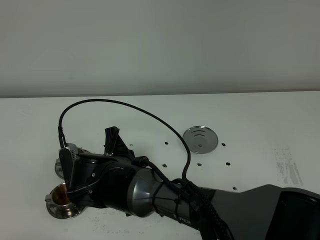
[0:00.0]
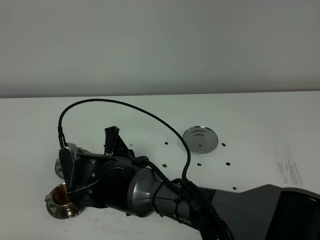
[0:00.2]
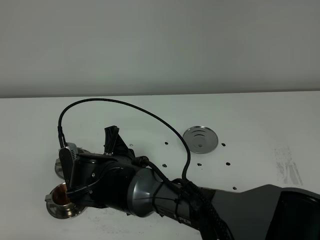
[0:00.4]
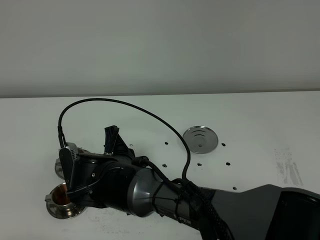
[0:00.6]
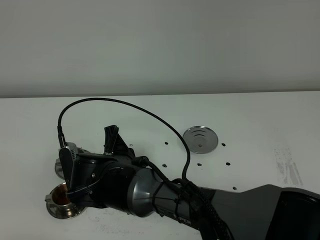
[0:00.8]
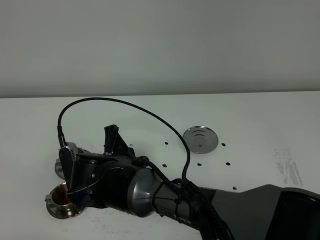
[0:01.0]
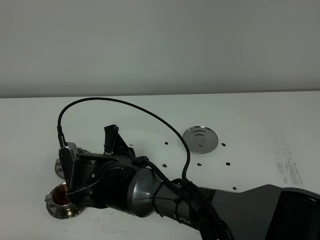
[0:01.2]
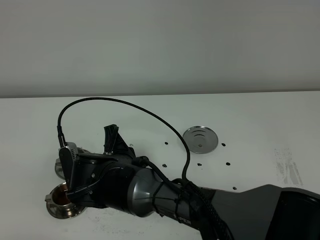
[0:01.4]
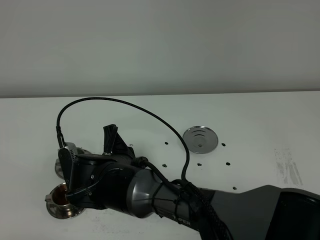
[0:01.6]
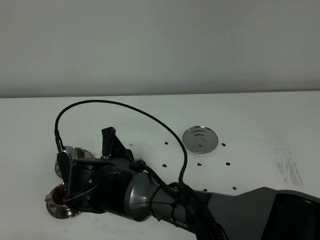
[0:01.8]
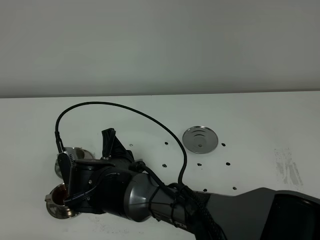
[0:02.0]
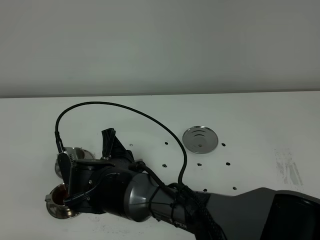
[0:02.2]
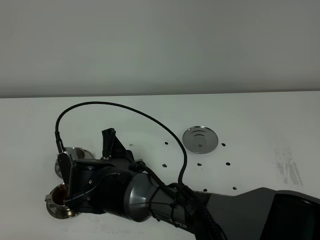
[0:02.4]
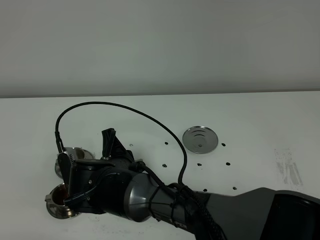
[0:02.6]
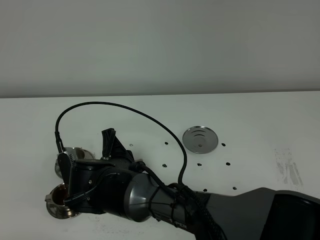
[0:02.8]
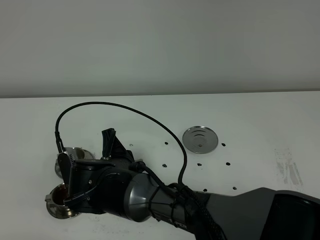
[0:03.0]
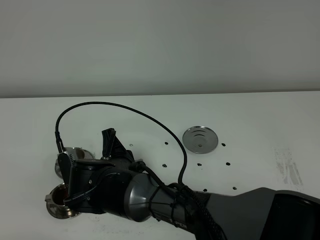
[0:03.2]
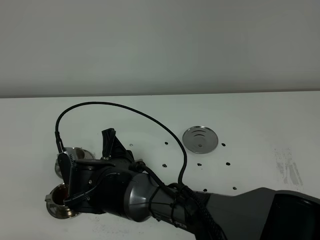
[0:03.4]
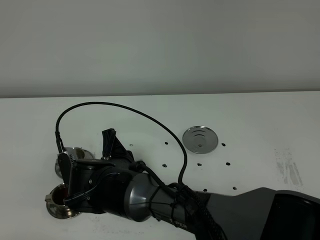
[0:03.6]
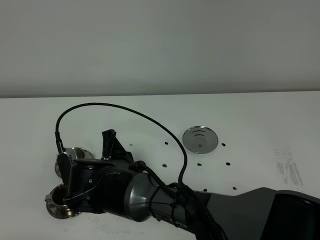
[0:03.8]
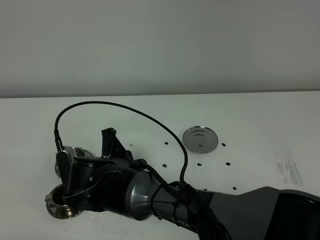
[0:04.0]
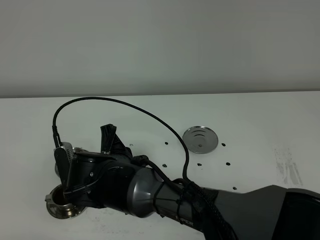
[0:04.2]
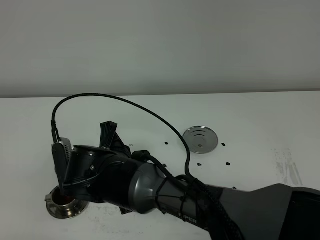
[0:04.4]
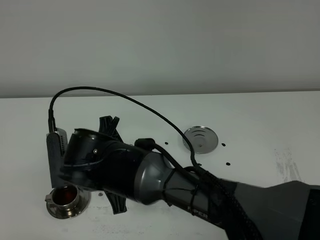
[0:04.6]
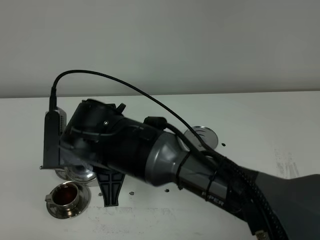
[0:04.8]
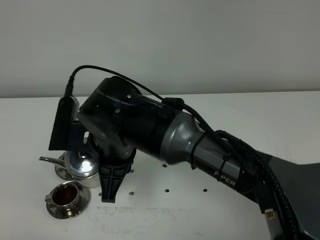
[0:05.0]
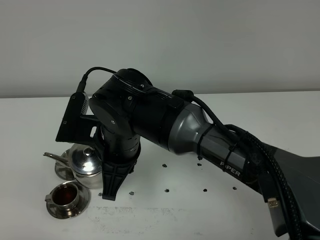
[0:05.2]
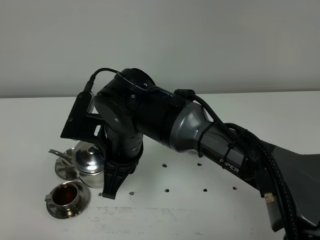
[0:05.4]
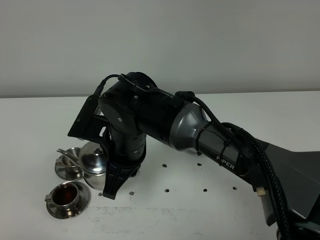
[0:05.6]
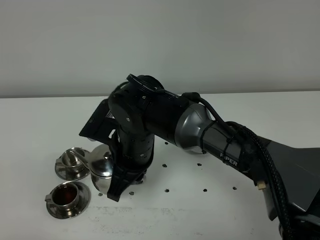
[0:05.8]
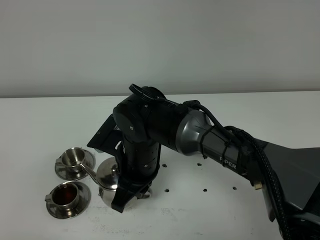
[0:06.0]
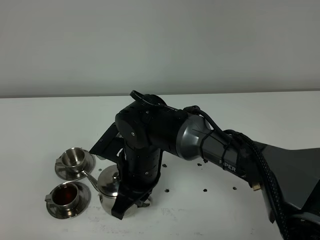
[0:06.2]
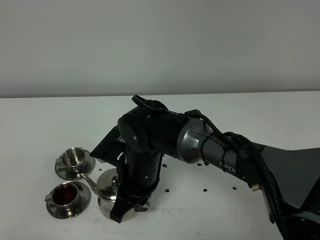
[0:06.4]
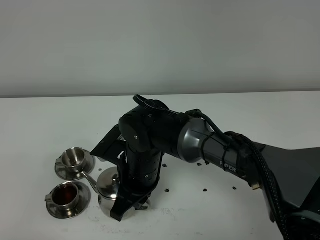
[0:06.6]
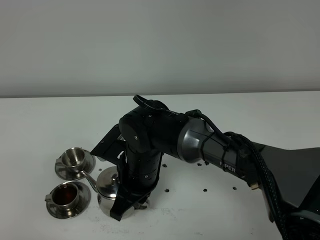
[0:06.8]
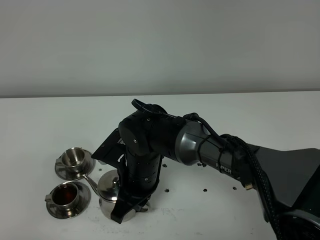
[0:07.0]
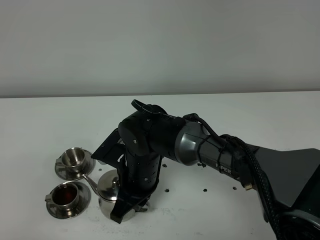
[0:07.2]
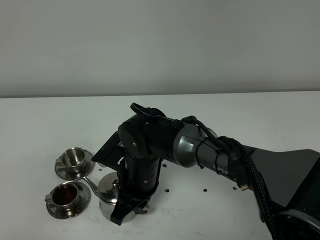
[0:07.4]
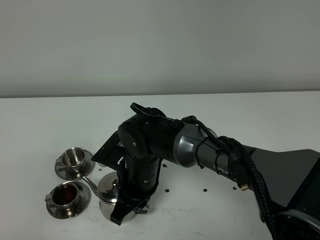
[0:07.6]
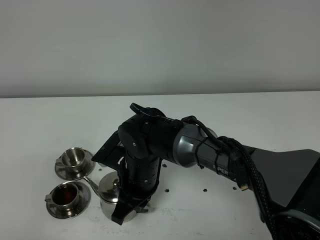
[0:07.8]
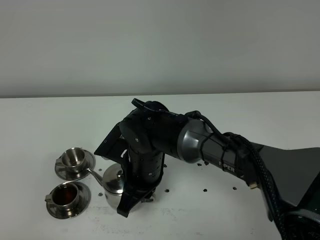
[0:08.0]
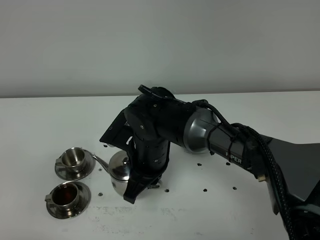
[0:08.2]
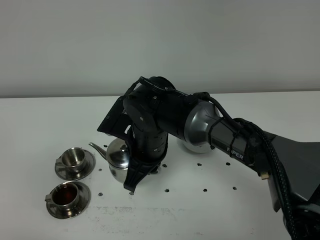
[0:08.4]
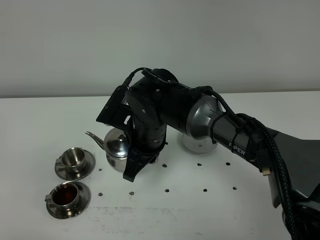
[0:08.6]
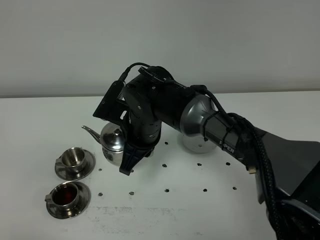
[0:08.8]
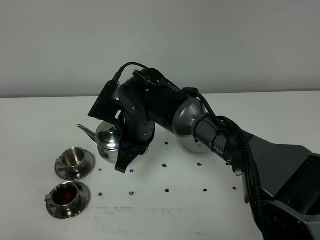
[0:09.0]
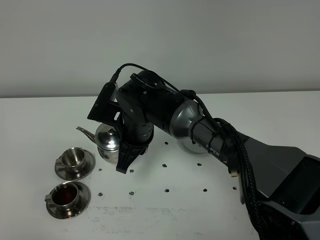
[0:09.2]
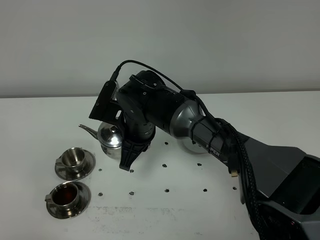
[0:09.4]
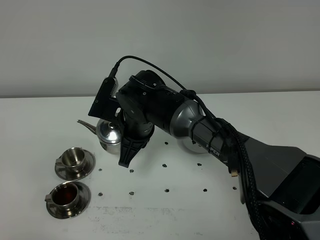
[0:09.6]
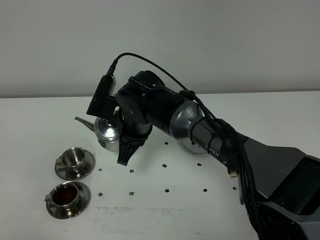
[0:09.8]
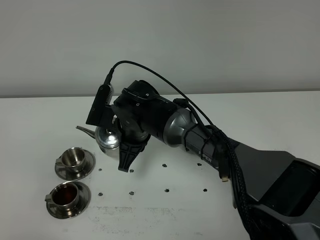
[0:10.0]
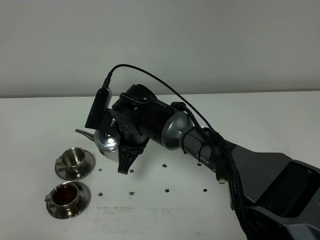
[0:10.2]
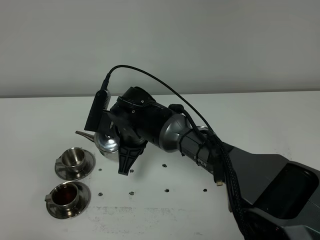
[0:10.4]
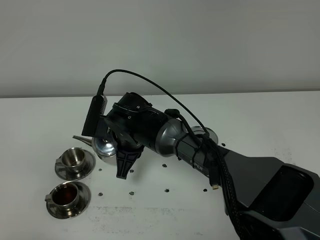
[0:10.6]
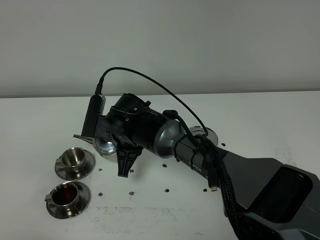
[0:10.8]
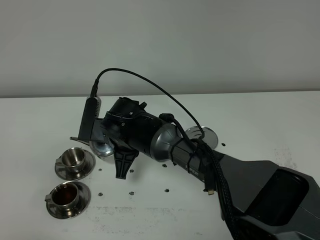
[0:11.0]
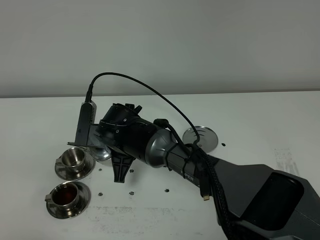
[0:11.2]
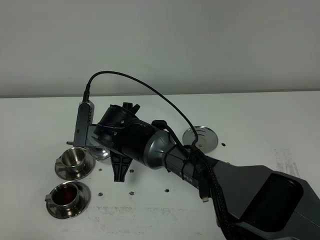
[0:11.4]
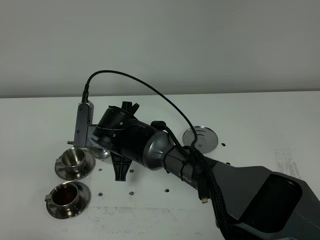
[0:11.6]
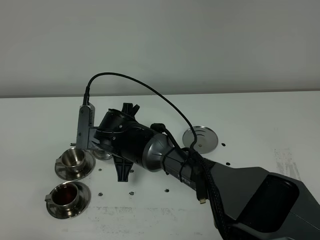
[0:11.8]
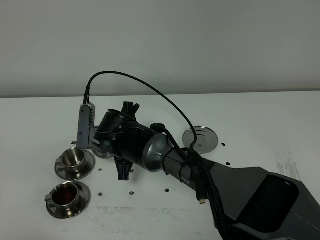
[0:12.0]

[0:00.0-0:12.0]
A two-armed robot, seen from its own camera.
Task of the whole recording: grasp the stainless steel teapot and pour the tea into the two stainless steel teacups one by one, put the stainless steel teapot back in its original place.
0:00.0 to 0:03.0: Both grippers stay about where they are.
0:03.0 to 0:04.4: The grippers make only small movements.
0:04.4 to 0:06.0: The right gripper changes place by approximately 5 cm.
0:06.0 to 0:07.6: The grippers make only small movements.
0:07.6 to 0:09.0: The right gripper goes roughly 5 cm forward.
0:09.0 to 0:10.4: The grippers make only small movements.
0:10.4 to 0:12.0: The grippers move only a little.

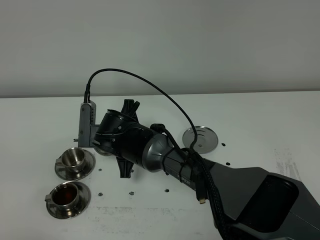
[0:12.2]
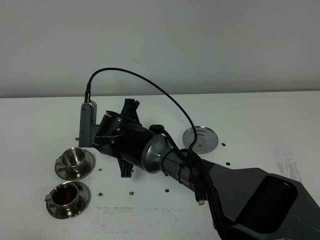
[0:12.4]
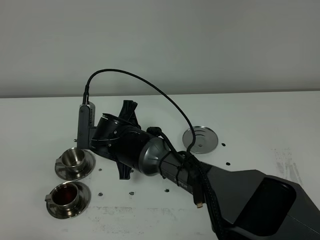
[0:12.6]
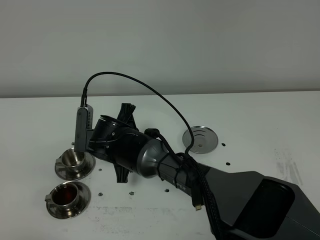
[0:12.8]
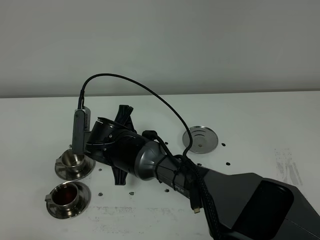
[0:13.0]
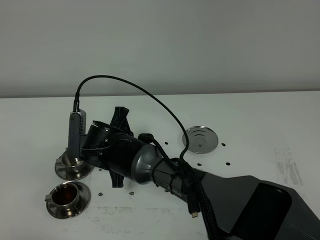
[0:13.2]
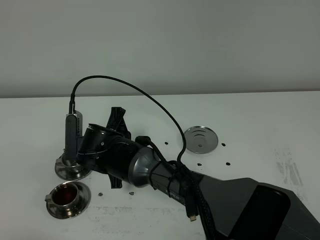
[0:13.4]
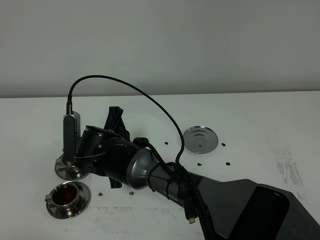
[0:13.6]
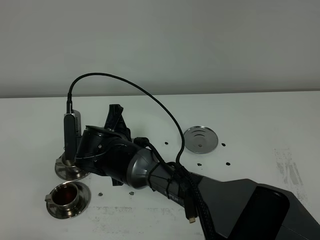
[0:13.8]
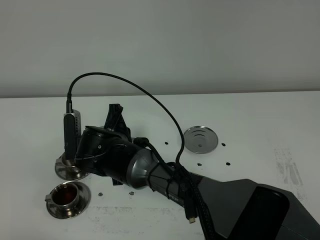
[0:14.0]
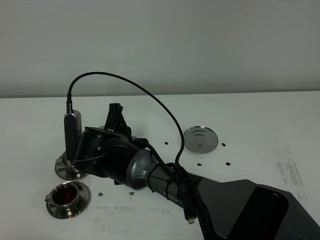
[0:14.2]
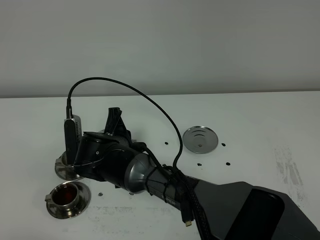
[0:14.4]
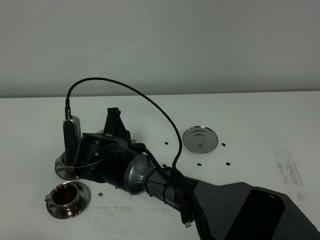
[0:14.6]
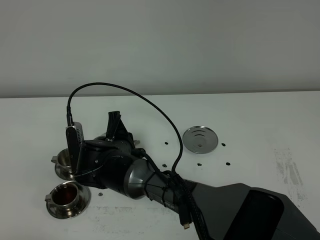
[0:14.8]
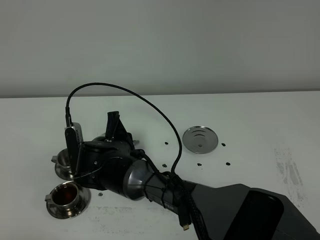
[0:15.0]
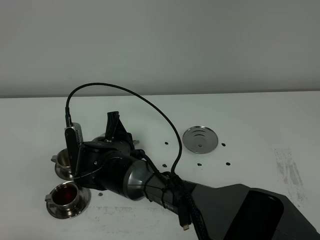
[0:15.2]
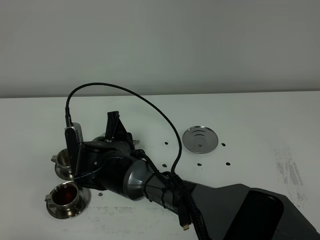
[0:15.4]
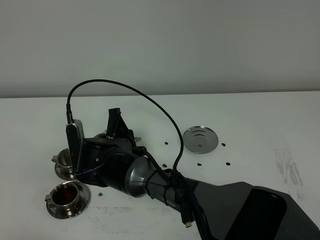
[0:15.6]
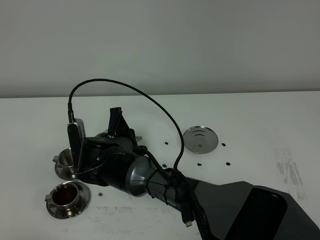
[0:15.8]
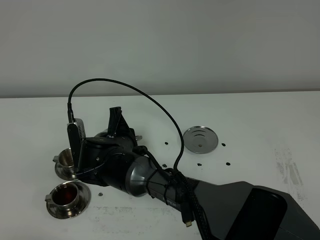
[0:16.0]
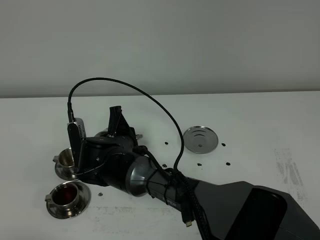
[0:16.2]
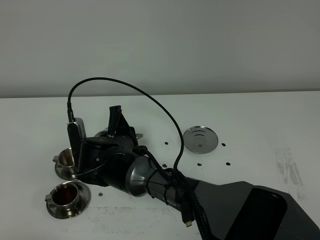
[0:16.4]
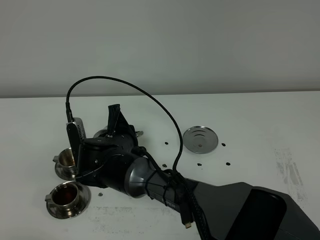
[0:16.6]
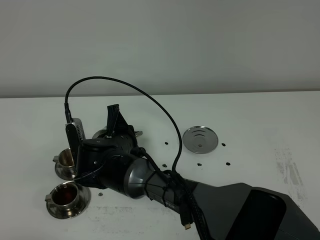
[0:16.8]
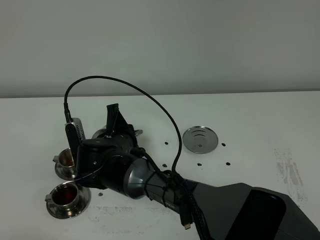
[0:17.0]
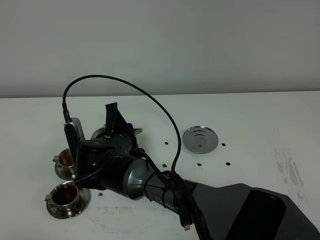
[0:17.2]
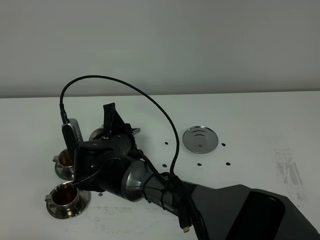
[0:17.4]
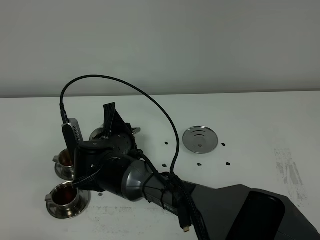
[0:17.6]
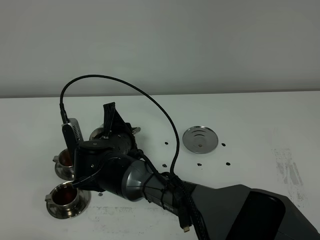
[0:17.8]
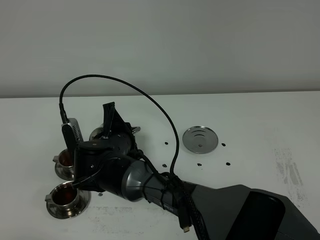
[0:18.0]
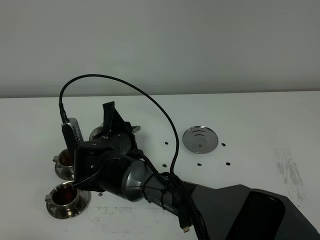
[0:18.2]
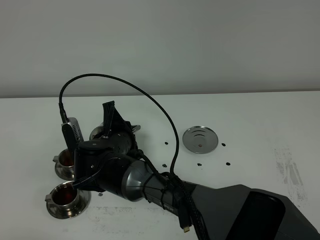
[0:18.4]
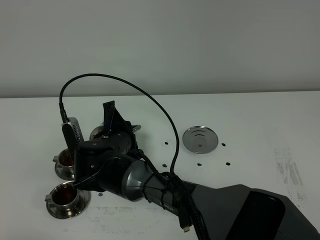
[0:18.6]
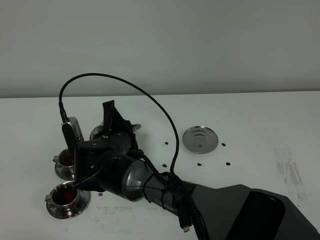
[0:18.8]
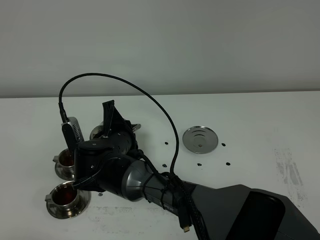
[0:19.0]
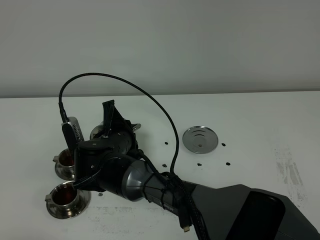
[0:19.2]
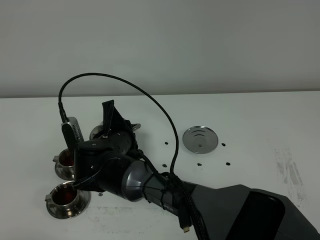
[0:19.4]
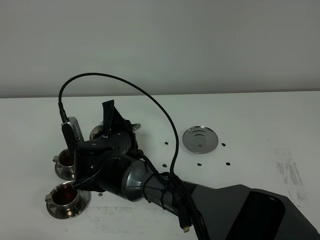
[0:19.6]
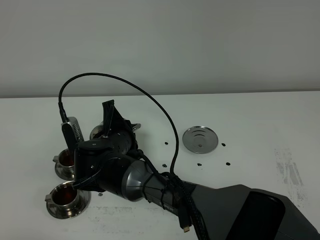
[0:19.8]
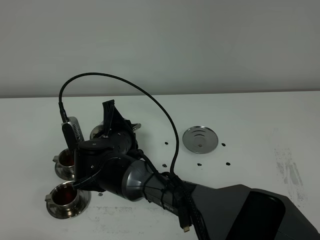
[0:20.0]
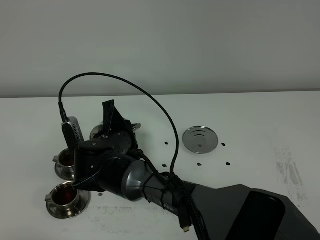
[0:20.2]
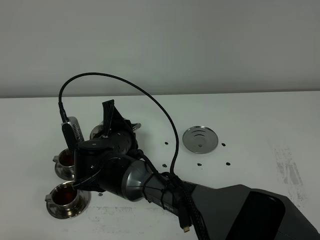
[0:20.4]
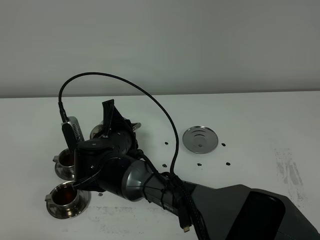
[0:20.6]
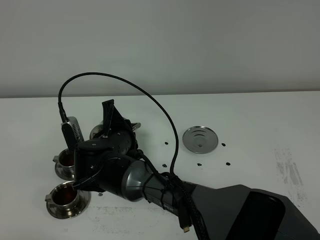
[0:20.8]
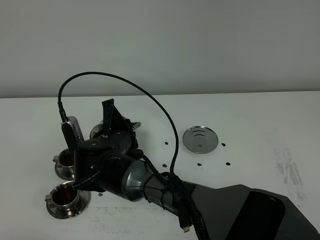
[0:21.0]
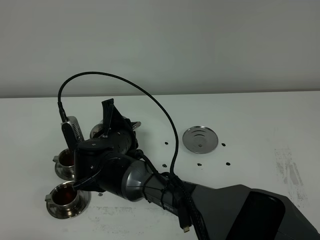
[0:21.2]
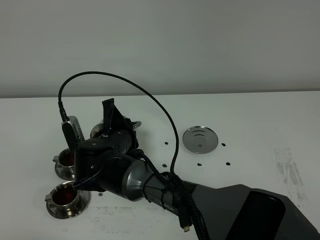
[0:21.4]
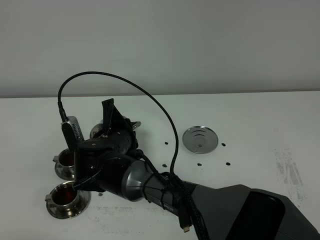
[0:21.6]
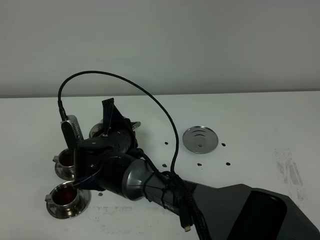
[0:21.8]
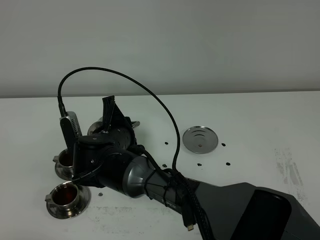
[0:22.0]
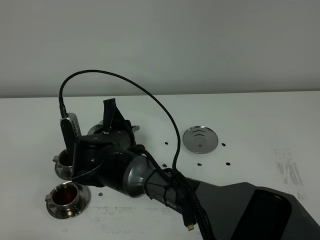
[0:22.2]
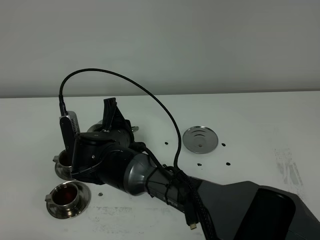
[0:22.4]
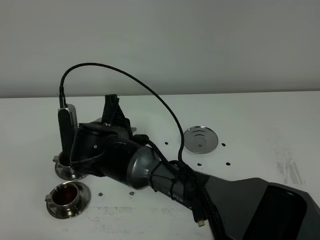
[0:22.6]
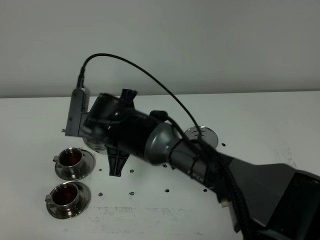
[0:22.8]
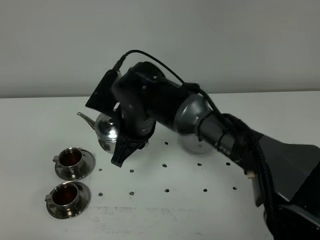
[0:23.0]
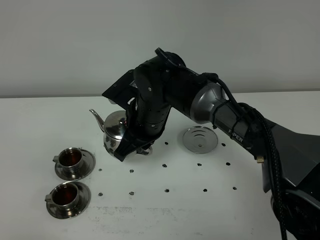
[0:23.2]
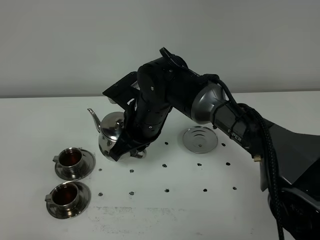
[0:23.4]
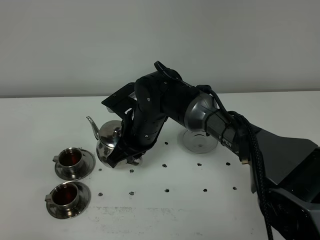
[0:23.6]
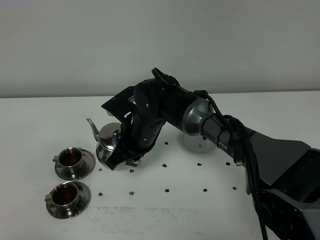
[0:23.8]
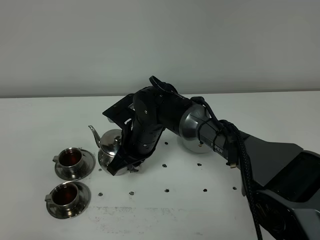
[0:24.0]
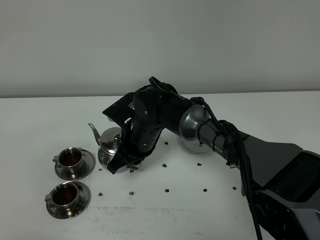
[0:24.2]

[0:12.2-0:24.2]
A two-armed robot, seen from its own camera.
Task of the whole recording: grasp the stainless steel teapot and pour the tea into the two stainless steel teacups one by one, put the stainless steel teapot back in its original place.
Step, 0:12.2 to 0:22.6: Pour tea into the teacup with the right gripper.
0:12.2 to 0:15.2: There are only small adjustments of the grippers.
0:15.2 to 0:16.6: Both grippers stay put.
0:16.6 to 0:18.2: Neither gripper changes place.
0:18.2 to 0:21.2: Both grippers stay put.
0:21.2 to 0:22.6: The grippers stay close to where they were, moving slightly.
0:22.6 to 0:24.2: The right gripper is displaced forward and to the right by about 10 cm.
